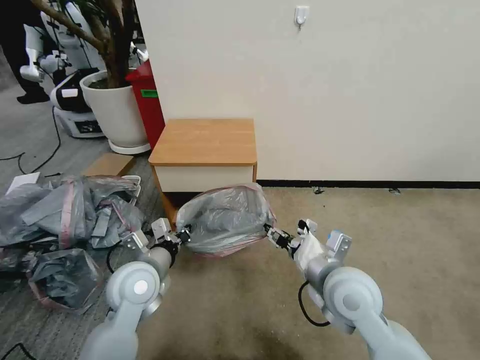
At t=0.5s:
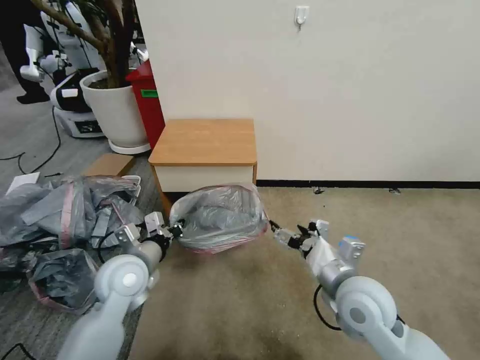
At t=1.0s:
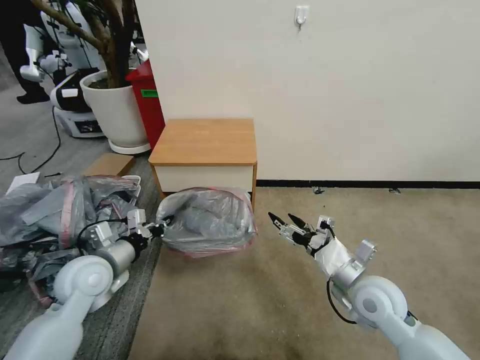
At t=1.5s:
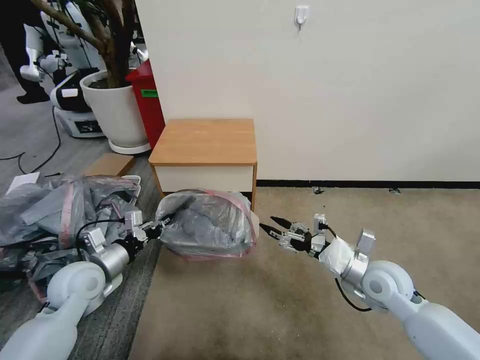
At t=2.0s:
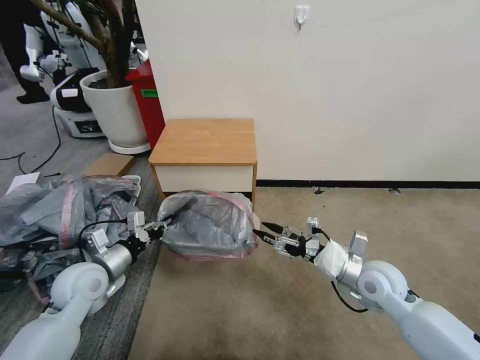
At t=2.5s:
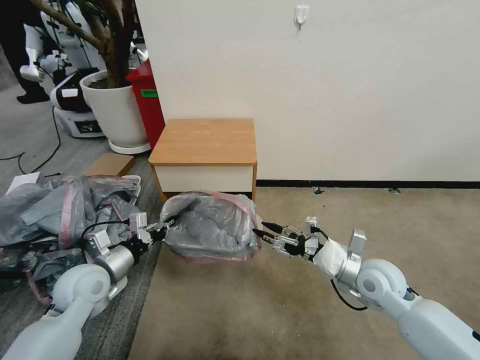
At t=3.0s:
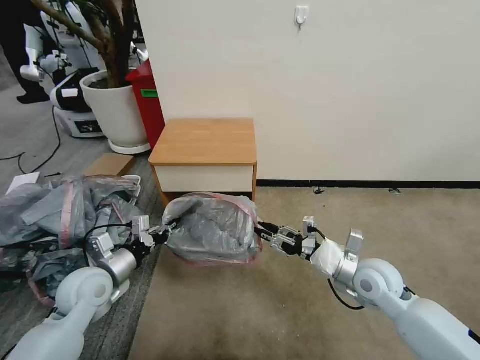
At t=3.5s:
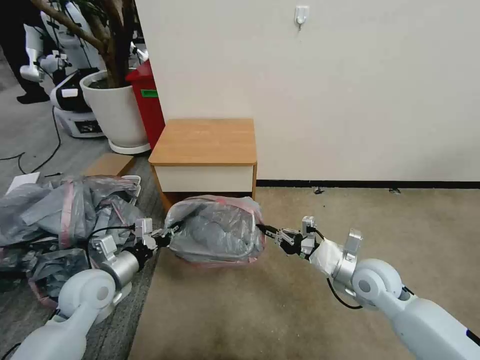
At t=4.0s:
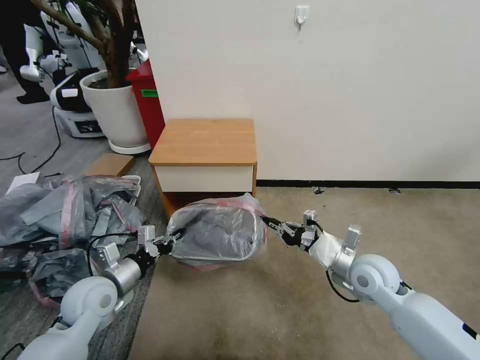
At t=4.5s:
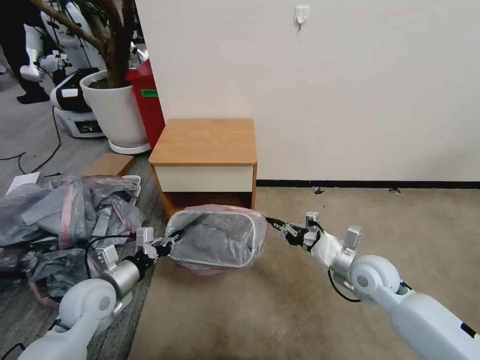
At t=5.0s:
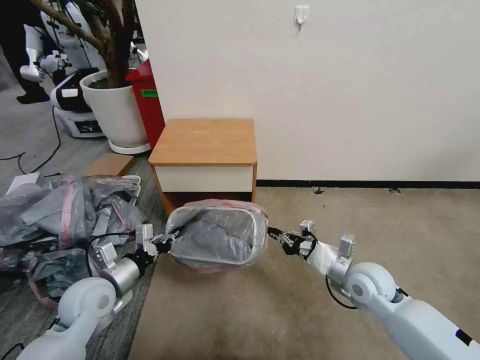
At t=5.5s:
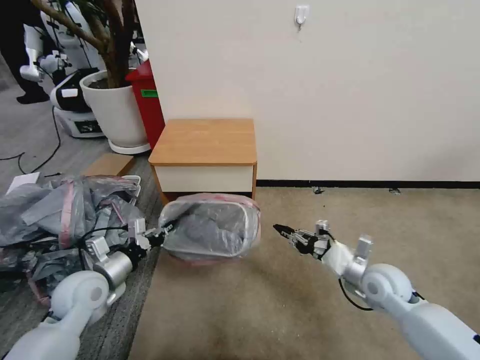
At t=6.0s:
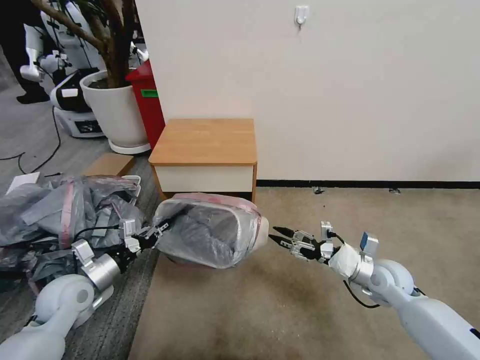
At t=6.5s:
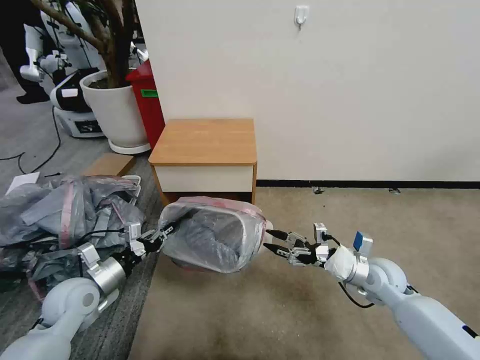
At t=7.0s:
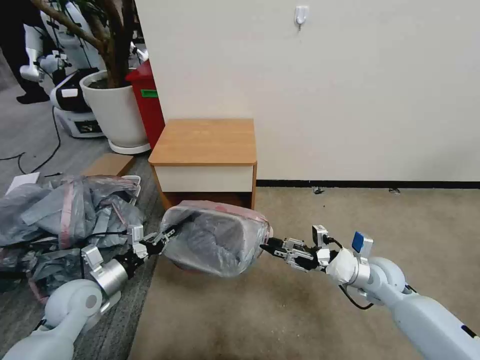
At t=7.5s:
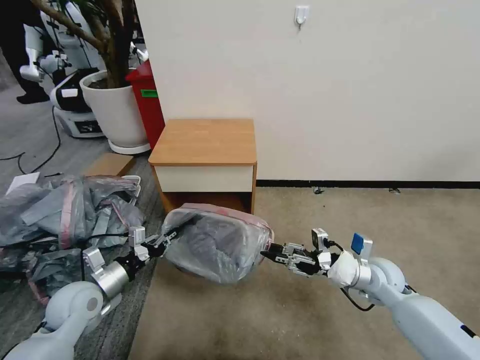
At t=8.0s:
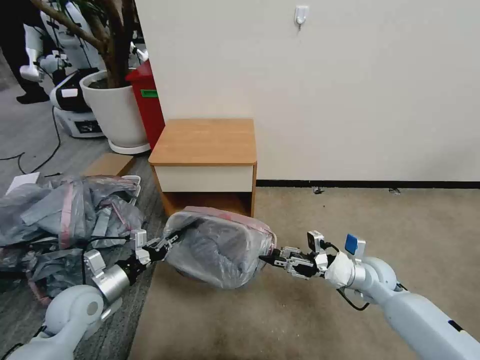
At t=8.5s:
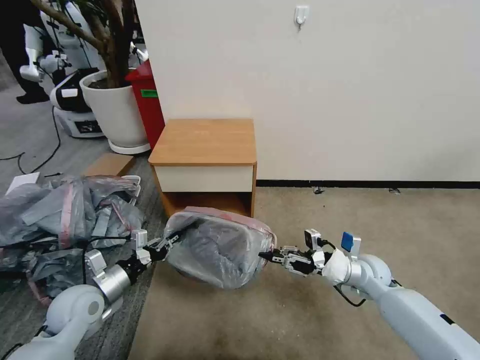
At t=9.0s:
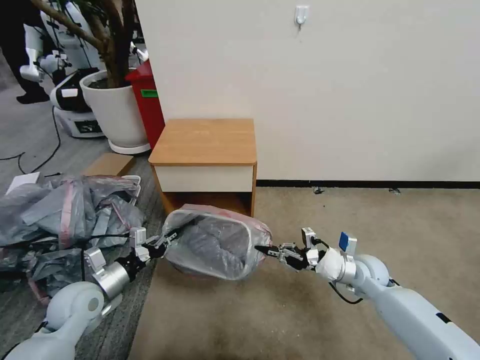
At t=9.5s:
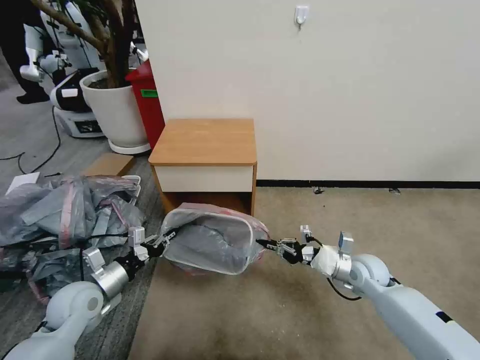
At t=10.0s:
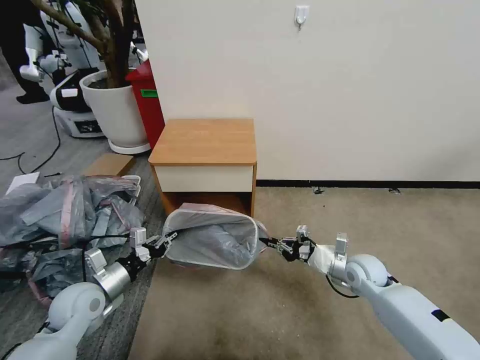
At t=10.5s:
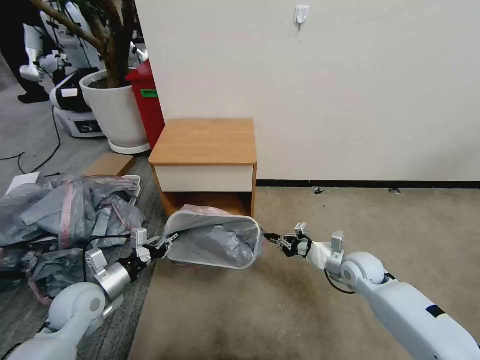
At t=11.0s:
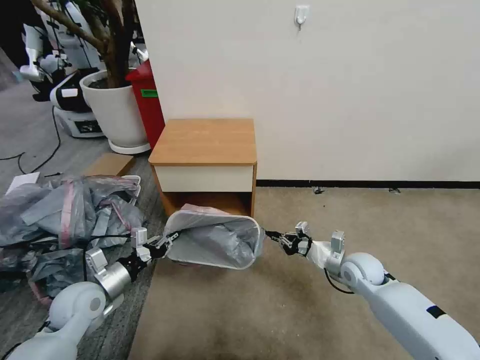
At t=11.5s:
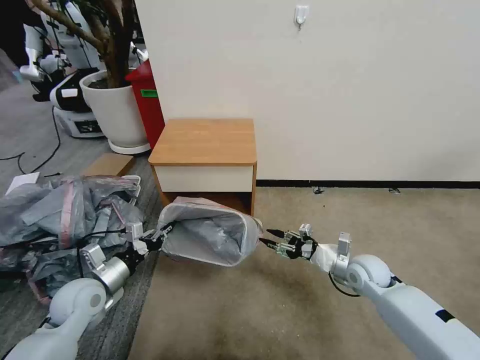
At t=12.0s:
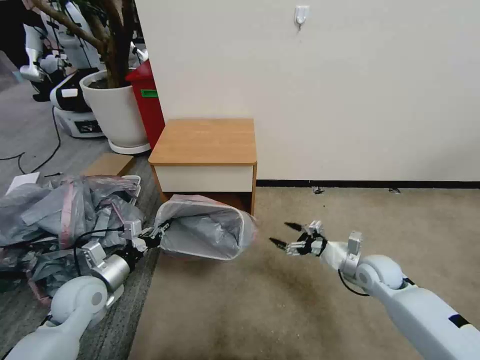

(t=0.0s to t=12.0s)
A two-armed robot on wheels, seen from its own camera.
Task of the whole recording: Pick up the garbage bag from the table and place it over the trash can.
t=0.0s - t=2.0s: The right gripper moves to the right and downward, approximately 15 cm, while the left gripper is displaced to the left by about 15 cm.
t=2.0s - t=4.0s: The right gripper closes up.
t=4.0s - t=6.0s: The left gripper is displaced to the left by some 5 cm. Meanwhile the right gripper moves to the right, roughly 5 cm, and opens its fingers.
t=10.0s - t=12.0s: The right gripper opens up.

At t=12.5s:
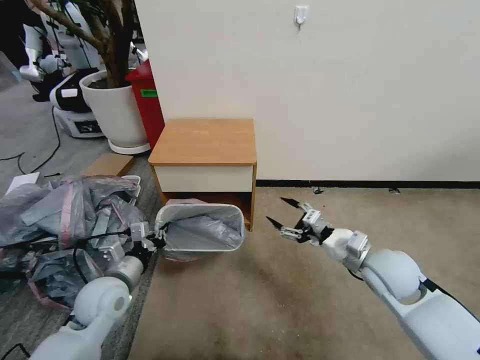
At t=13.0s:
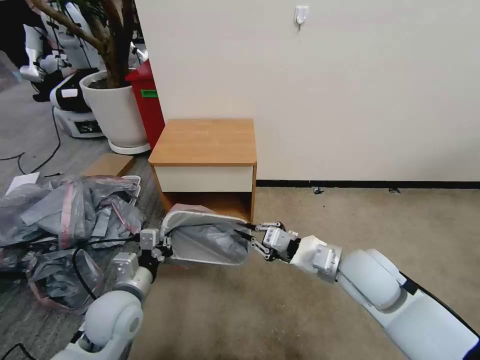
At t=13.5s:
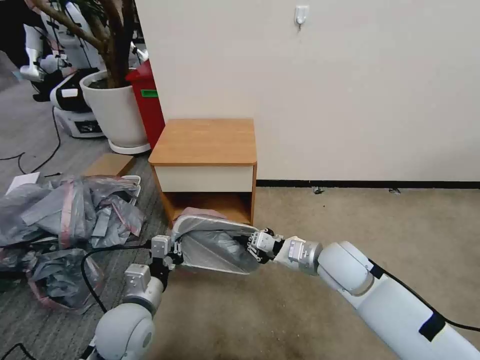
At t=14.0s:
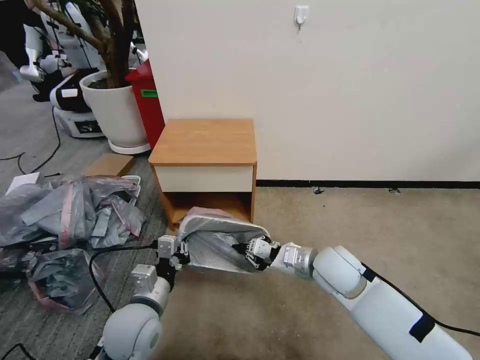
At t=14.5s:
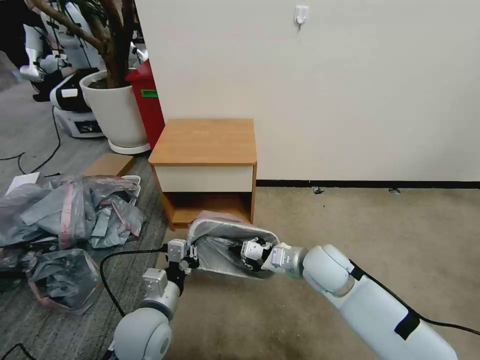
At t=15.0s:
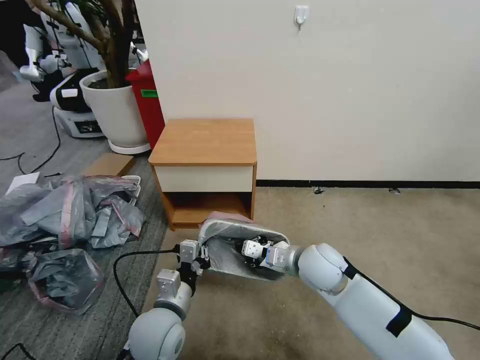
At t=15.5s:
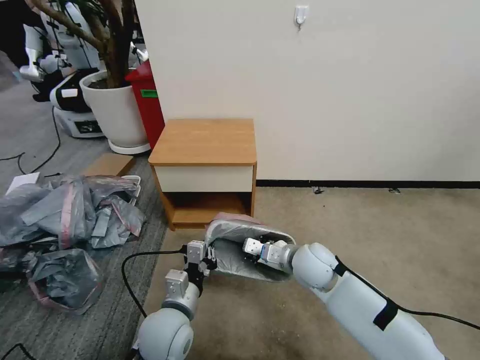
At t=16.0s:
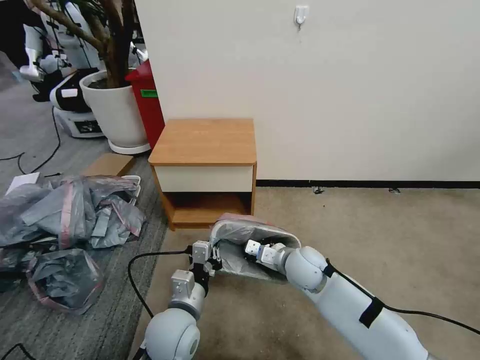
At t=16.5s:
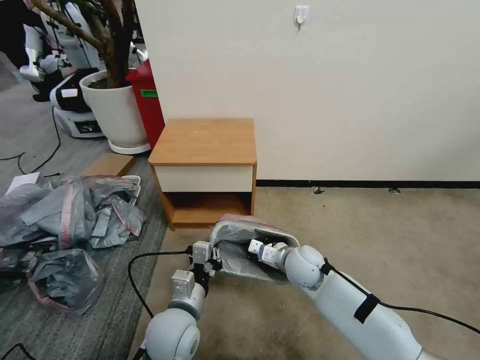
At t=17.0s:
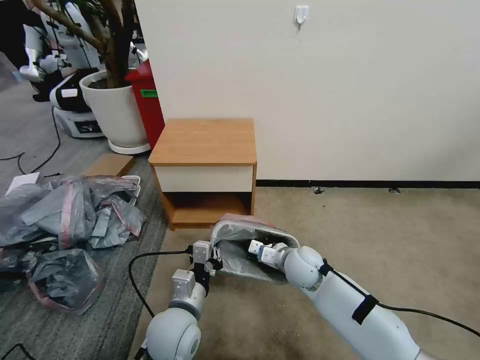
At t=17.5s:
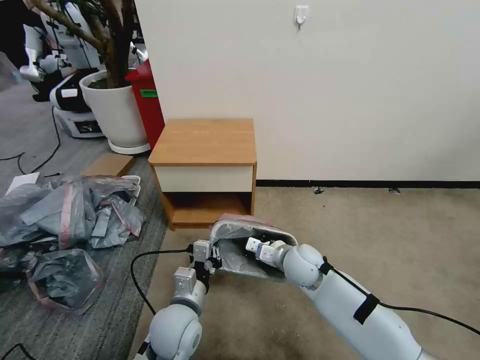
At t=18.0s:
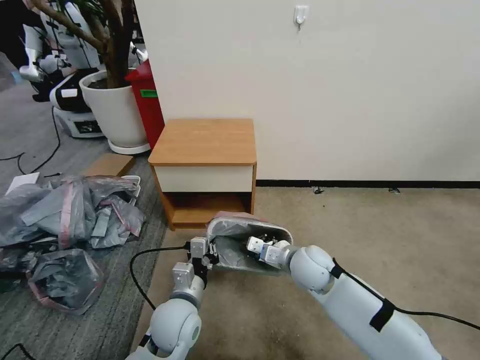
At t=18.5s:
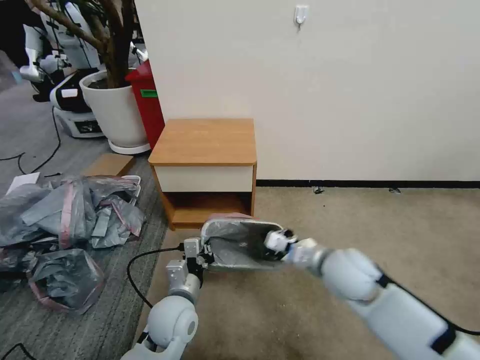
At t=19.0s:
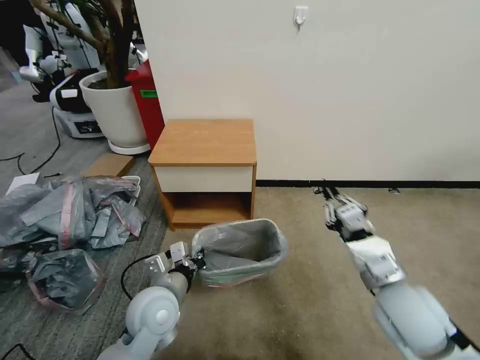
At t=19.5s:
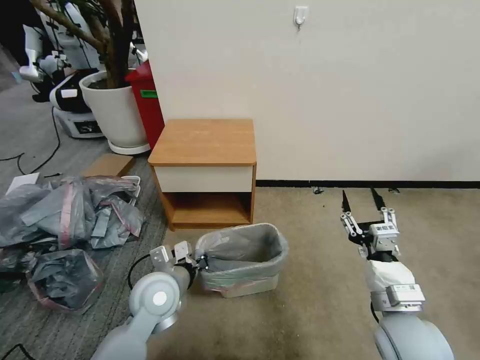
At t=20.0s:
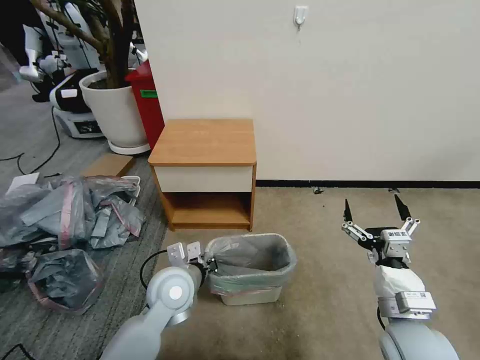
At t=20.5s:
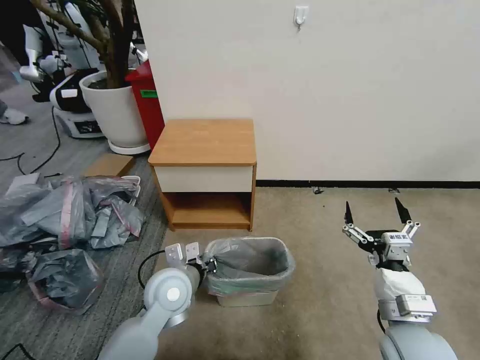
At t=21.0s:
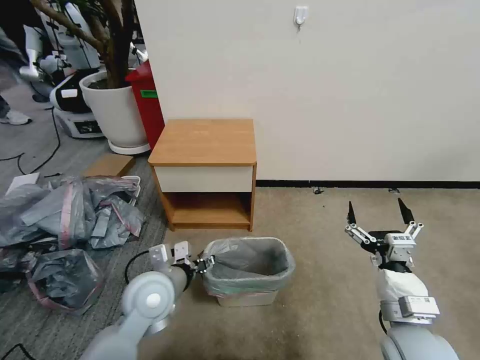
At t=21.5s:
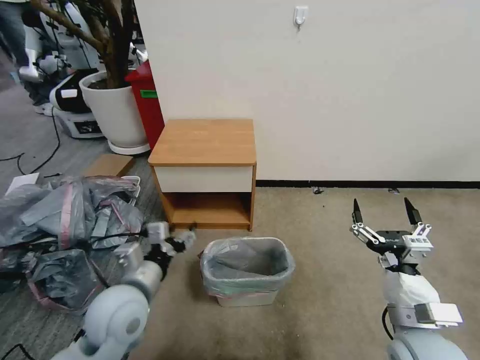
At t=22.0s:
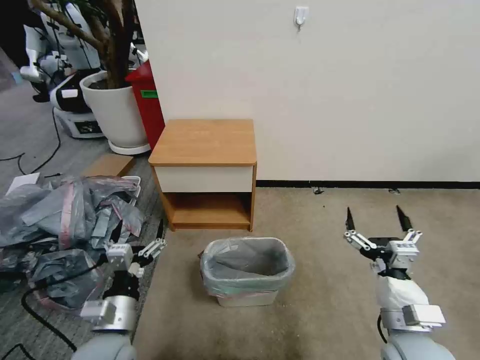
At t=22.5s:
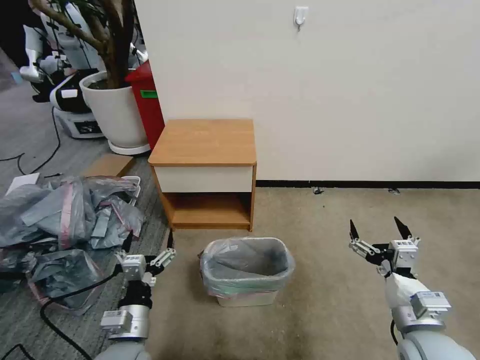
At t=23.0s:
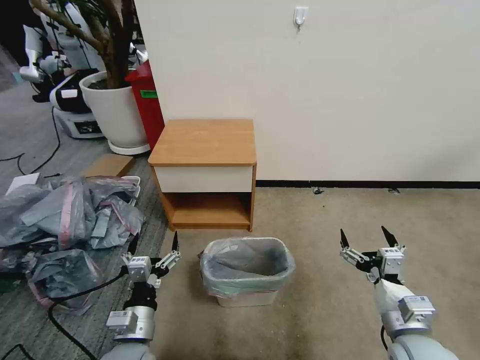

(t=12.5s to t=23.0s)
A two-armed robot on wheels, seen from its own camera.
Task of the whole recording: Pick up the garbage bag from the table and place it over the trash can.
t=12.5s - t=14.5s: The right gripper is displaced to the left by some 10 cm, and closes its fingers. Meanwhile the left gripper goes approximately 10 cm to the right and backward.
t=14.5s - t=16.5s: The right gripper goes roughly 10 cm downward, while the left gripper is displaced to the right by some 5 cm.
t=16.5s - t=19.0s: The right gripper moves backward, upward and to the right, some 25 cm. The left gripper shifts by approximately 5 cm.
t=19.0s - t=21.0s: The left gripper opens, while the right gripper moves backward, about 5 cm, and opens its fingers.
t=21.0s - t=23.0s: The left gripper shifts approximately 15 cm backward and downward, and opens up.

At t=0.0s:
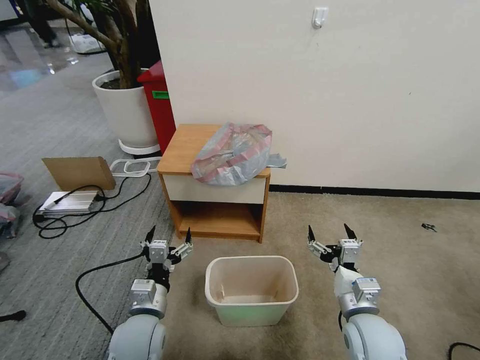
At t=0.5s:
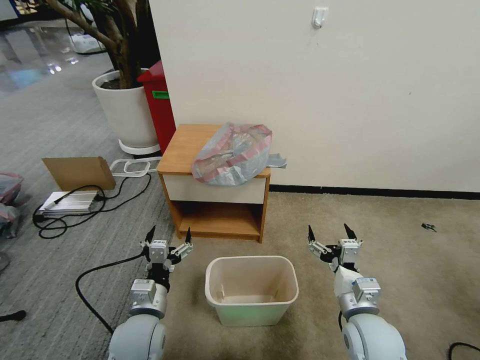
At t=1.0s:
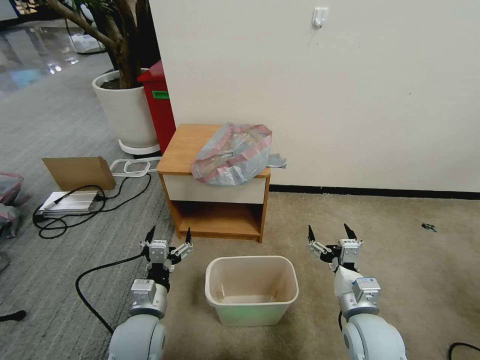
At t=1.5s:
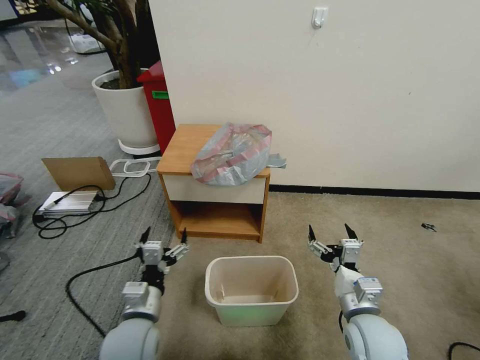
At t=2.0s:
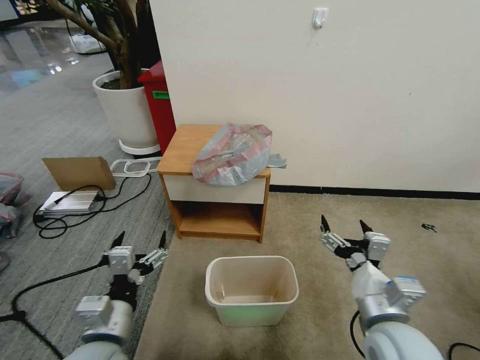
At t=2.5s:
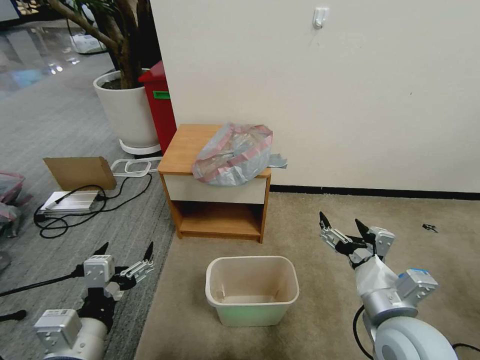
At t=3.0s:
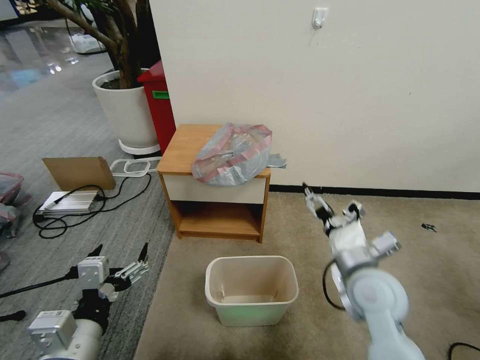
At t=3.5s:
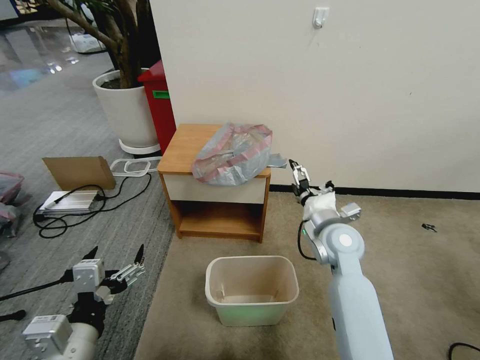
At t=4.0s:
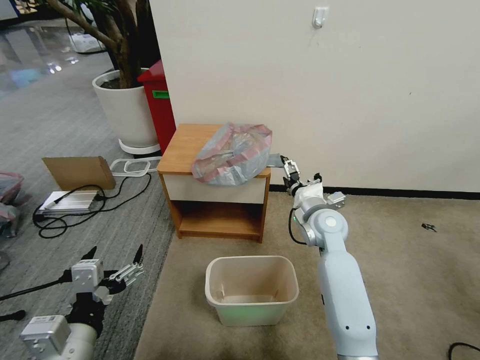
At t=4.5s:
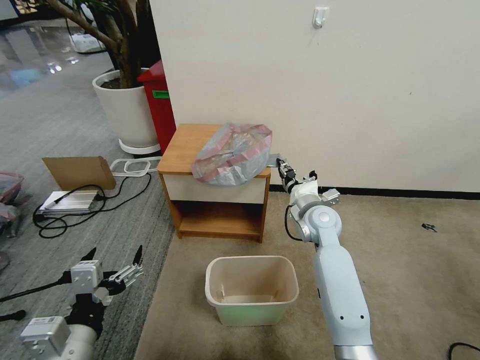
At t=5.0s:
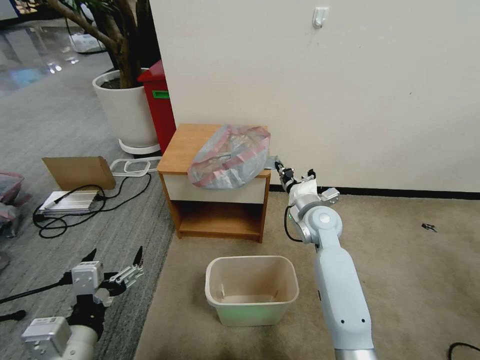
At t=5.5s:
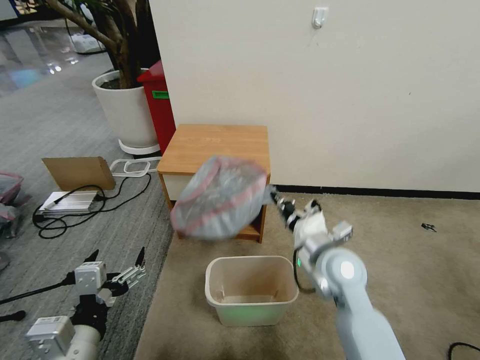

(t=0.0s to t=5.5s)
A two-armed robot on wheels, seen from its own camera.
Task of the whole recording: Pick up the garbage bag from the table and place it over the trash can.
t=2.0s - t=3.5s: The left gripper changes place by approximately 5 cm; the right gripper is displaced forward by approximately 20 cm.
t=3.5s - t=5.5s: The right gripper travels backward by some 5 cm, and closes its fingers.
